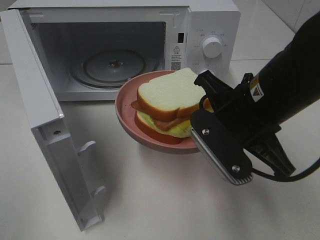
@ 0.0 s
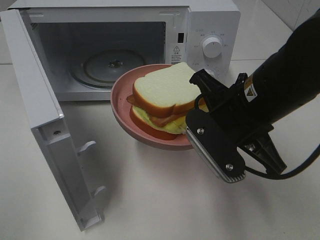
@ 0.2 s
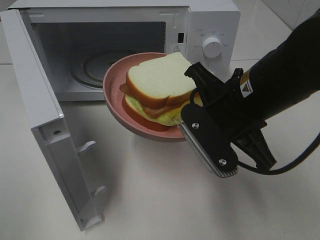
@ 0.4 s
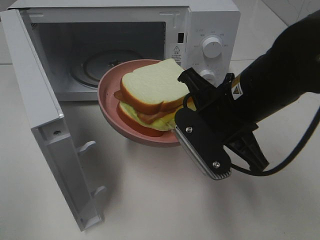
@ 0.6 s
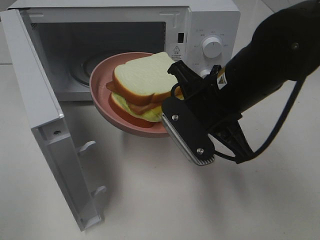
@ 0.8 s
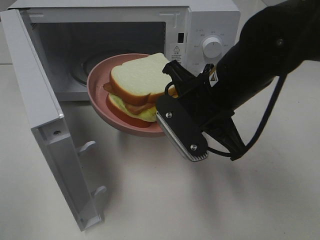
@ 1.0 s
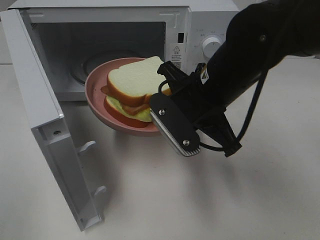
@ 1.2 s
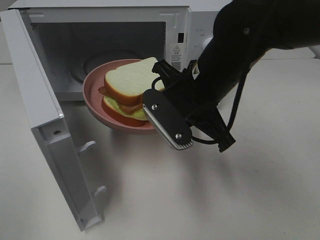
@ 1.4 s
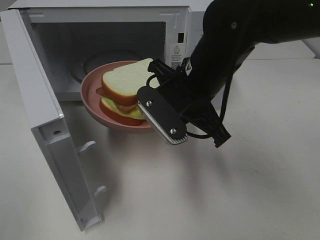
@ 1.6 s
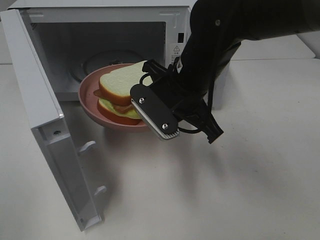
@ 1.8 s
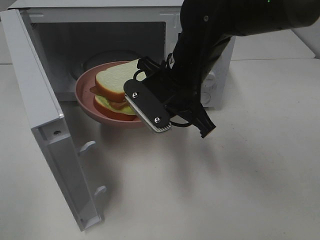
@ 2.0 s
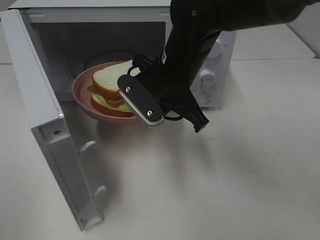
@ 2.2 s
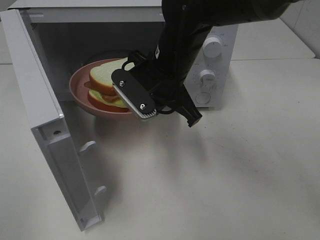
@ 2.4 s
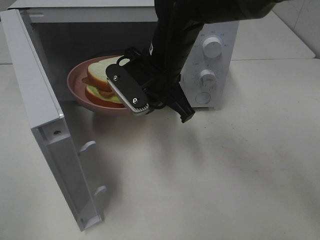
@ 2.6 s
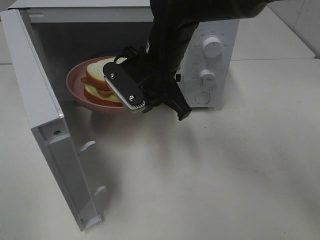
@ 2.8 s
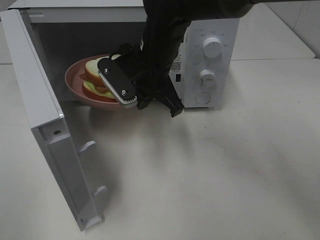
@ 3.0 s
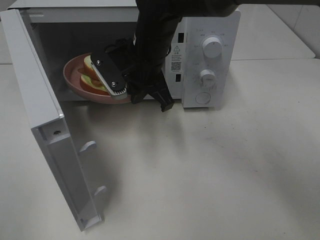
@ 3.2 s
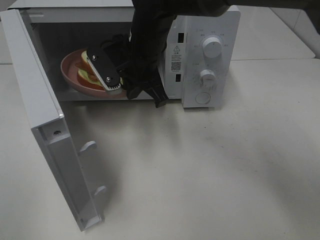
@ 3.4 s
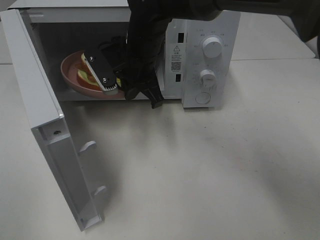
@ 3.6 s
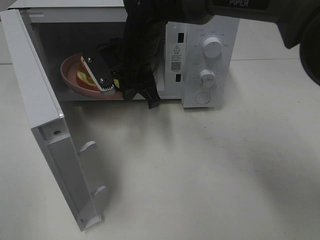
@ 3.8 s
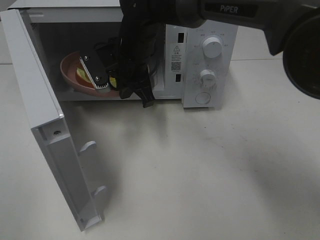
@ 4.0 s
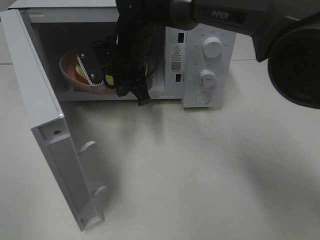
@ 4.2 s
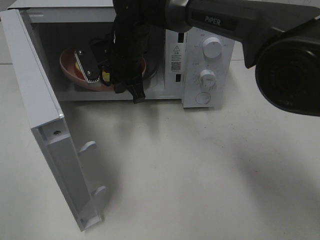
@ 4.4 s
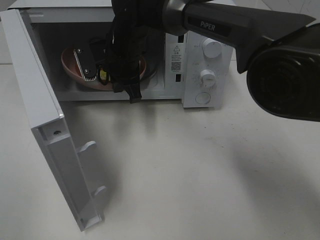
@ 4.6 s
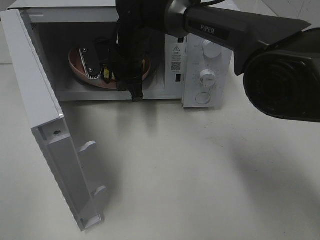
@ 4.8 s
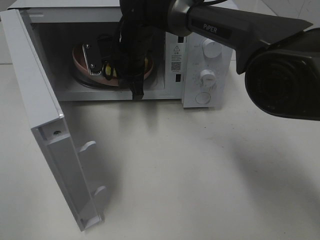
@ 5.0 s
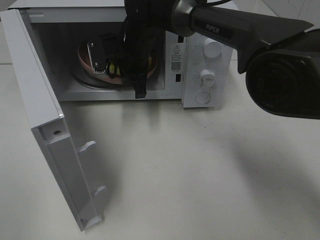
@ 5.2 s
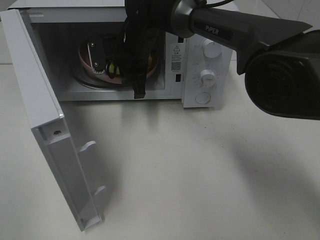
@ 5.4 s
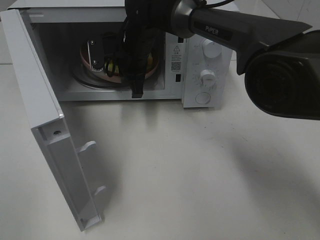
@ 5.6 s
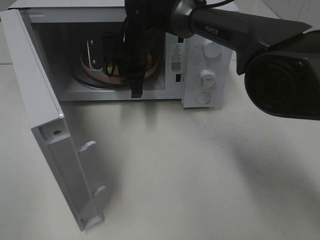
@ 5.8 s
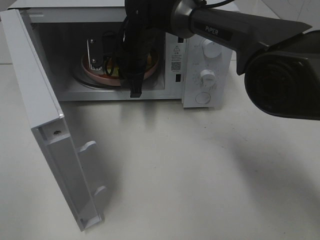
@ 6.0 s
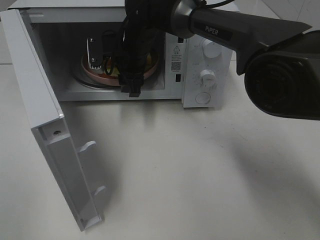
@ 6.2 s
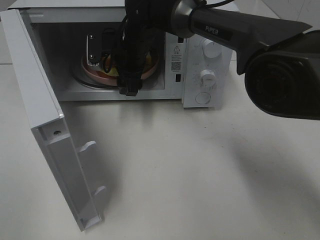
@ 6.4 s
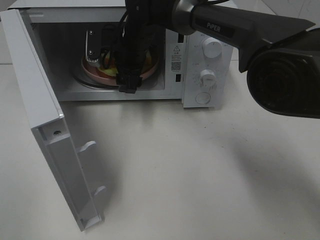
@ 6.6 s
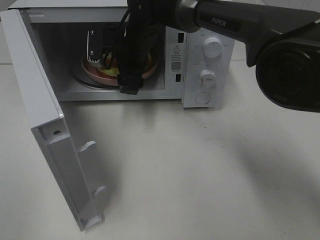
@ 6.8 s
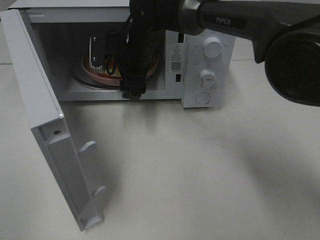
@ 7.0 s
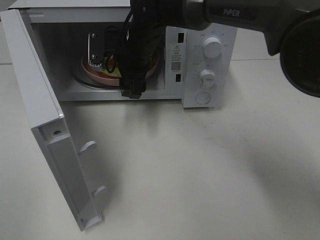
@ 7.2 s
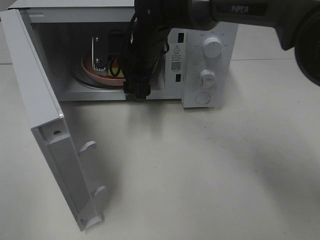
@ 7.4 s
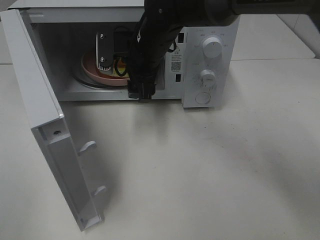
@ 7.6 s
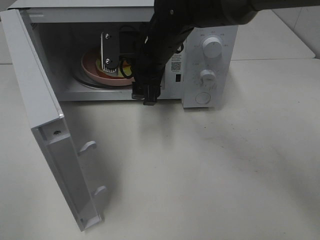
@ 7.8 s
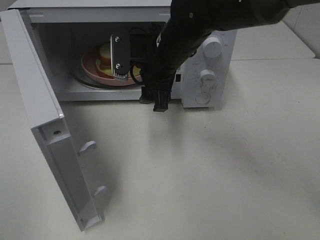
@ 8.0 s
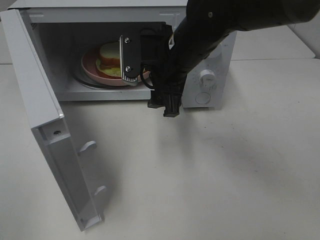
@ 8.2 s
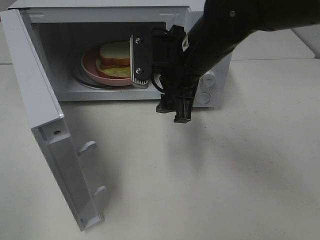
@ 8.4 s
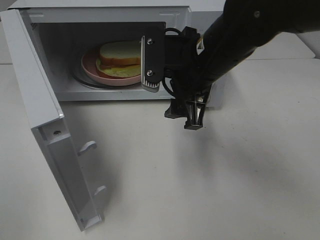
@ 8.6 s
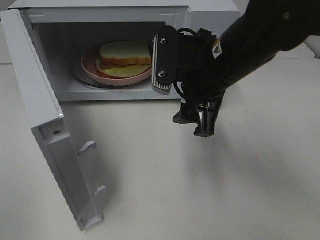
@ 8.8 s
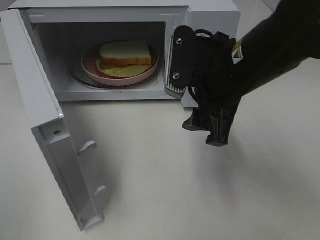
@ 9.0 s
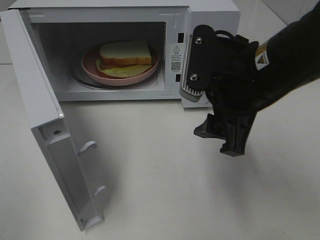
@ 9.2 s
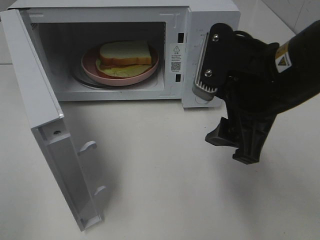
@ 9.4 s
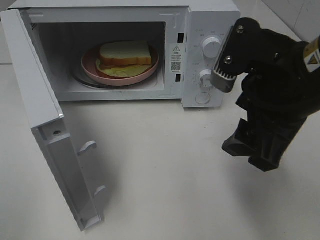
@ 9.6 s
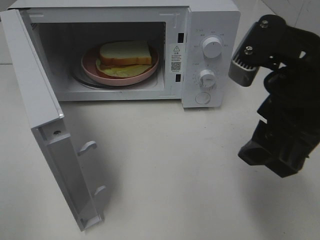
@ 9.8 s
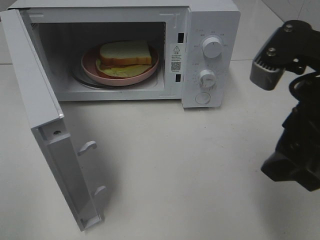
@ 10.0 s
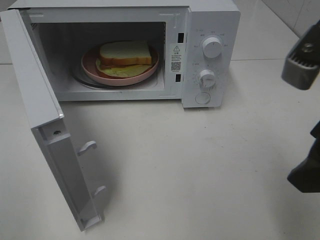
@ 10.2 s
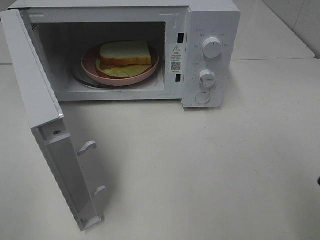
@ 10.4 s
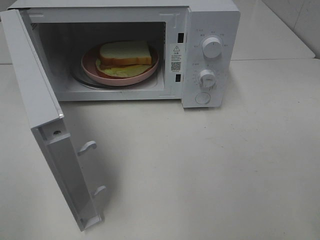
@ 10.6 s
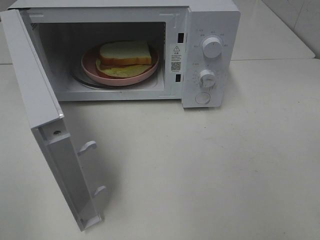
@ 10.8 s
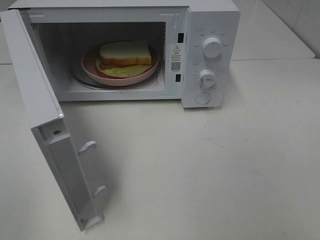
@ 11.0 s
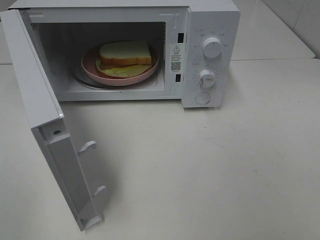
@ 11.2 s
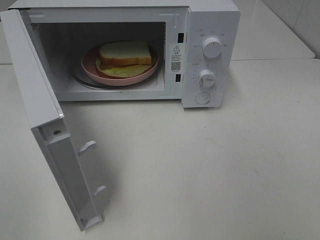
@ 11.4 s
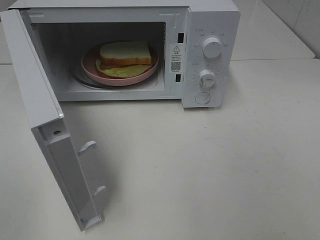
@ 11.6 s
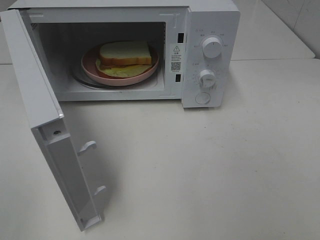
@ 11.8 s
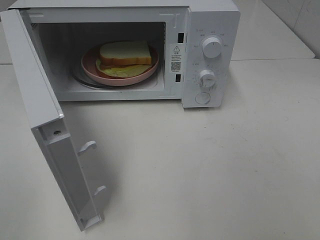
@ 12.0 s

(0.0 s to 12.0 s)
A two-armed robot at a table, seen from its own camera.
Task of the whole recording: Heat Sandwich.
Step, 0.0 s - 6.8 s: Right hand: place the plate in the microwave.
0.0 s - 1.6 s: The right gripper shifts about 10 cm forward and to the left.
1.6 s - 3.0 s: The right gripper heads forward and to the left, covering some 10 cm.
3.0 s - 4.4 s: The right gripper travels forward by approximately 5 cm.
4.4 s - 6.0 s: The grippers stay close to where they were, moving slightly.
6.0 s - 7.6 s: The right gripper heads backward, covering some 5 cm, and opens.
7.6 s - 9.0 s: The right gripper shifts approximately 20 cm backward and to the right.
9.0 s - 10.4 s: The right gripper is displaced backward, to the right and upward by approximately 20 cm.
10.4 s - 12.0 s: The right gripper moves backward and to the right, approximately 15 cm.

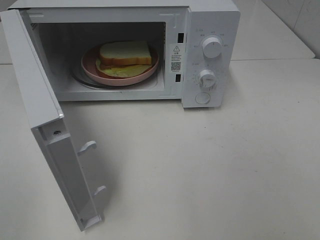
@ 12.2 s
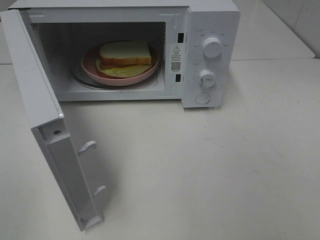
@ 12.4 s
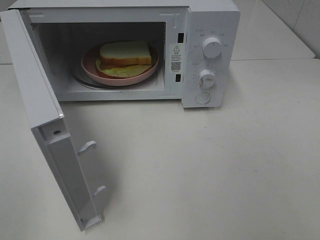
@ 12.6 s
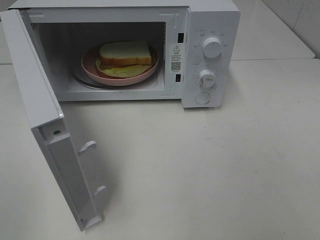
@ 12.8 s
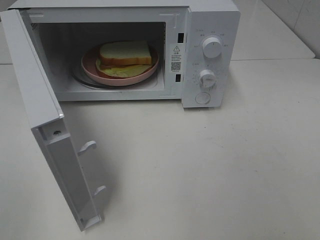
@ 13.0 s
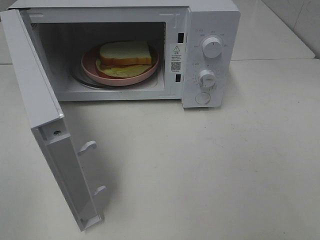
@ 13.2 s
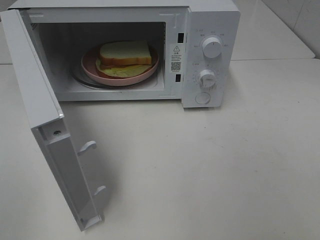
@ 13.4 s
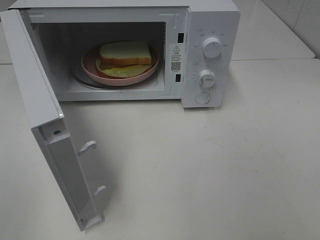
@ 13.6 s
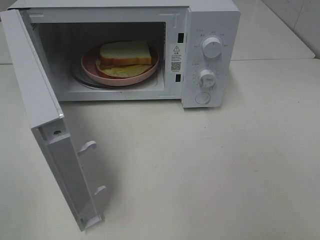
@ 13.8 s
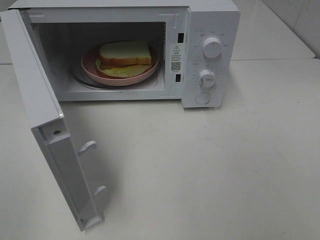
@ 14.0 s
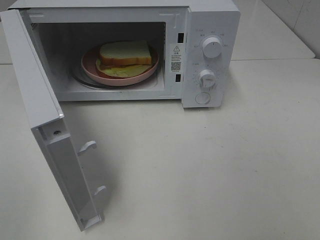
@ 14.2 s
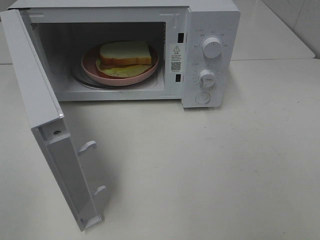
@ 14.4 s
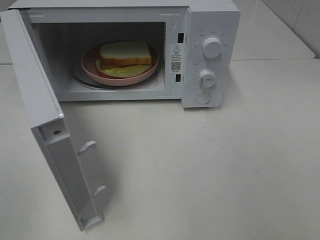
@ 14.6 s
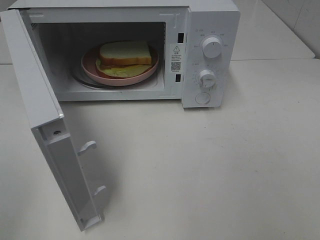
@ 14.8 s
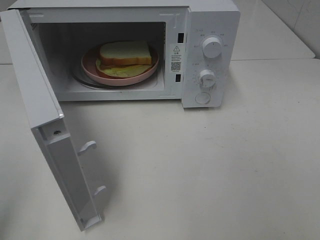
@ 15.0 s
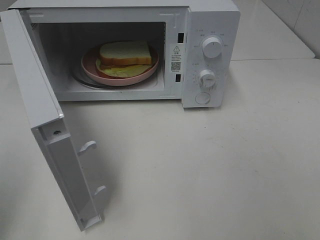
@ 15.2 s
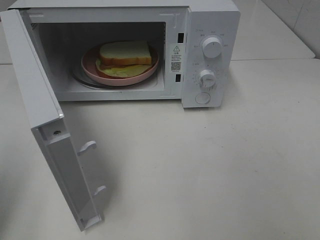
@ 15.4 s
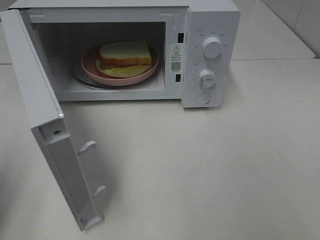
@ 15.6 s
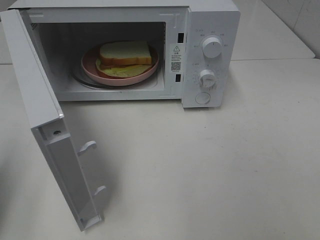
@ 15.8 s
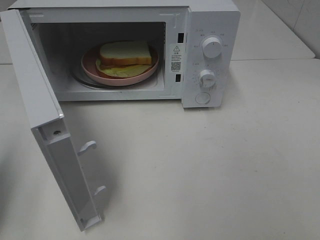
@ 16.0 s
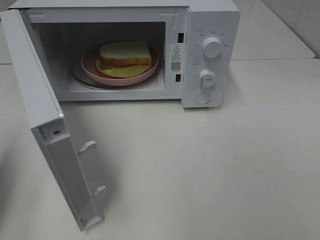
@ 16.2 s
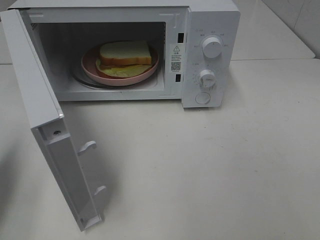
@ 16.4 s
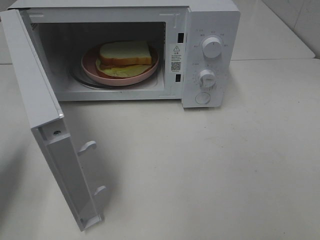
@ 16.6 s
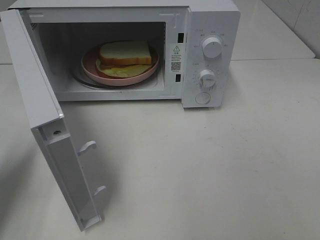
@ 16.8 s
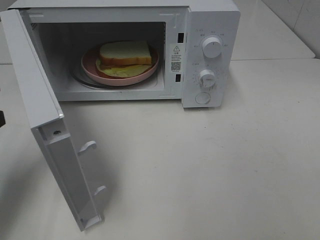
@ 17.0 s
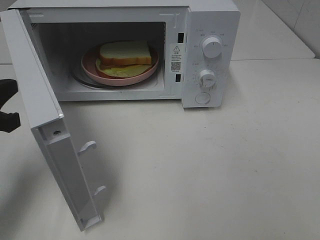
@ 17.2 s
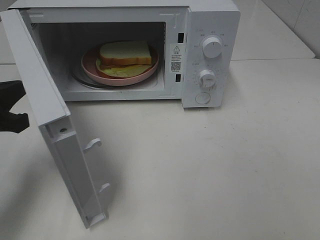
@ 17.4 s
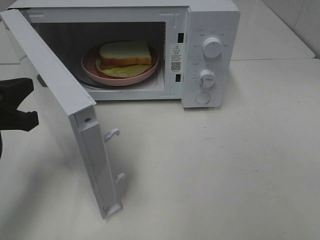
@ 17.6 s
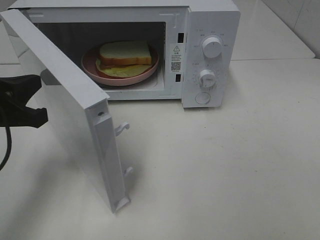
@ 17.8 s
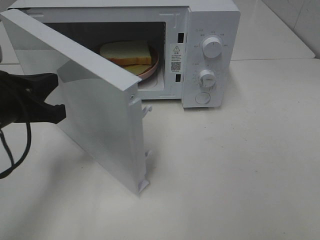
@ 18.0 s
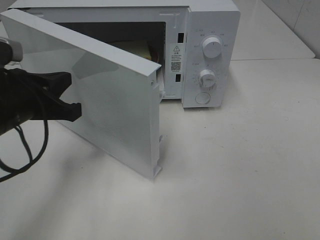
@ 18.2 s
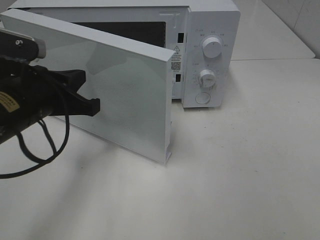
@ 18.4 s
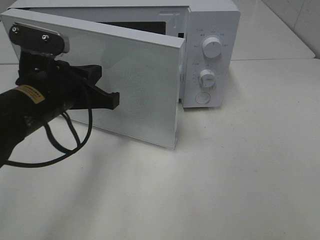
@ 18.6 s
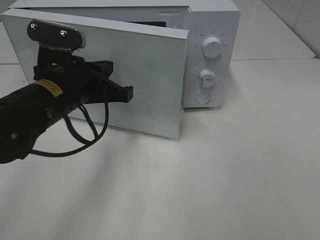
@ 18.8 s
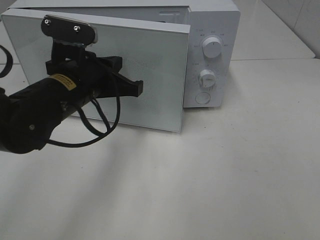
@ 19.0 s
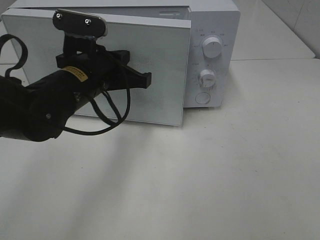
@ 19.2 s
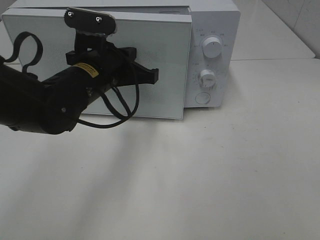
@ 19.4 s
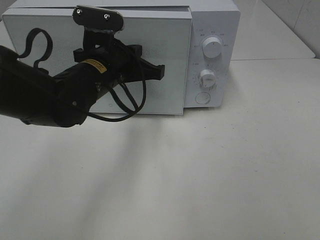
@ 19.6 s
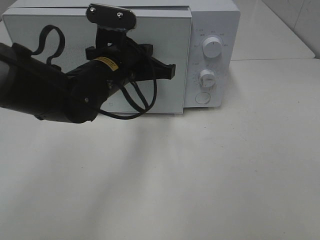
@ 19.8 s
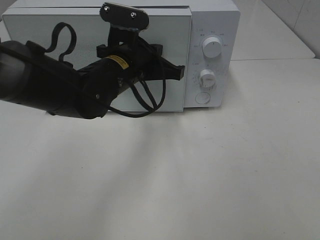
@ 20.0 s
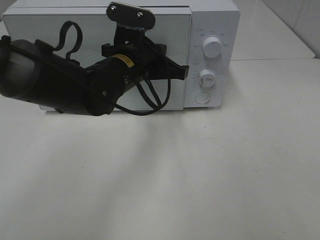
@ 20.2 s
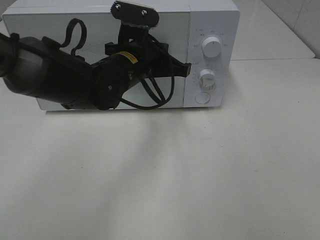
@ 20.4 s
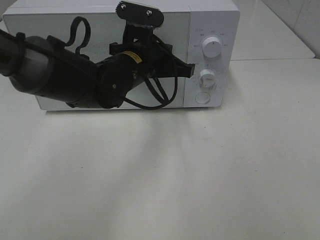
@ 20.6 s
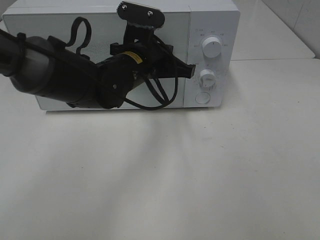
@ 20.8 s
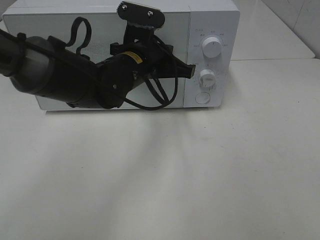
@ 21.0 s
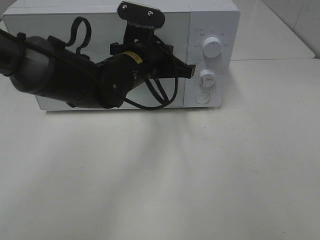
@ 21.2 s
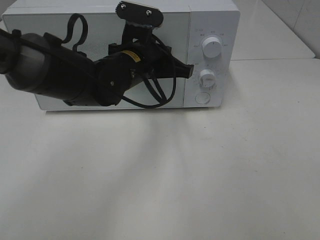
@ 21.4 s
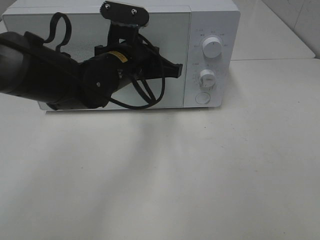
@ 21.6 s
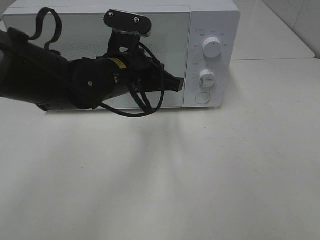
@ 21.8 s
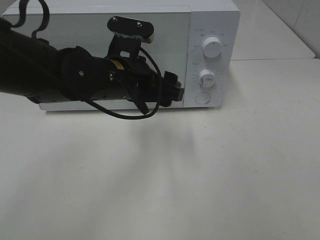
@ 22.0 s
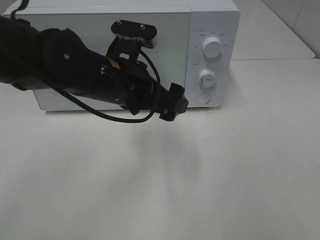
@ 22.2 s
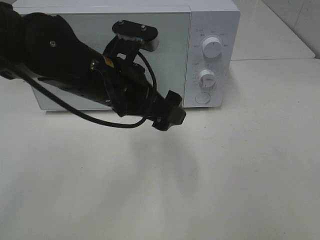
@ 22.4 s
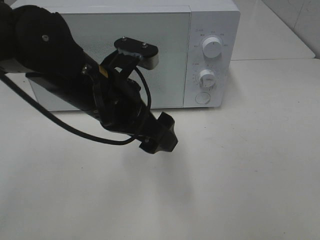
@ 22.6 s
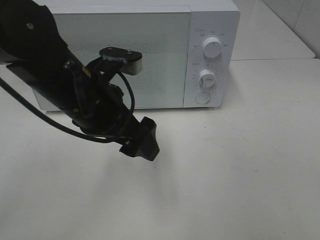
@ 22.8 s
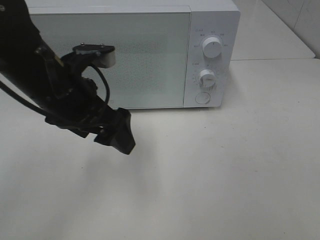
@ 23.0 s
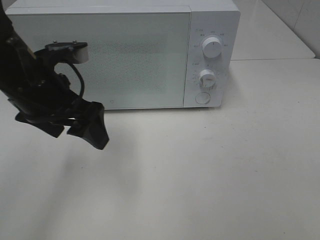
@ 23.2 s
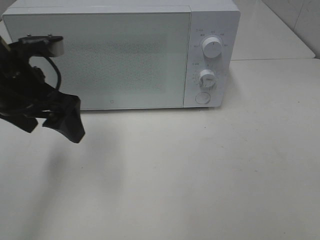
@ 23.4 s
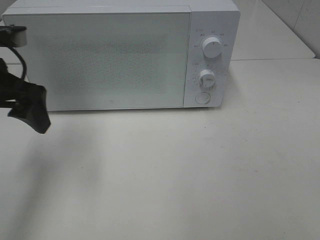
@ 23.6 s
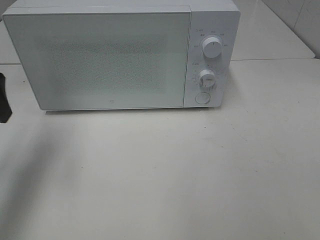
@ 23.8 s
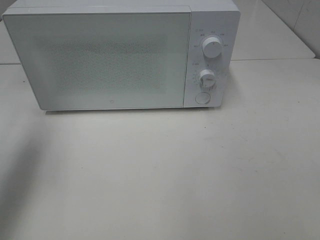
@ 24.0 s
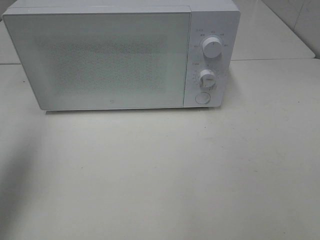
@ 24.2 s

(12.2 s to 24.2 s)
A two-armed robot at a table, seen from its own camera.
Task of the whole recording: Heat Sandwich.
Step, 12.2 s - 21.6 s: Left hand: close the microwave door.
12.2 s - 13.8 s: Neither gripper changes place.
15.2 s - 16.6 s: The left gripper shifts approximately 15 cm forward and downward.
16.6 s - 18.2 s: The left gripper is displaced to the right by about 10 cm.
18.2 s - 19.8 s: The left gripper heads to the right and forward, covering roughly 15 cm.
19.8 s - 21.2 s: The grippers move only a little.
21.2 s - 22.6 s: The left gripper goes about 10 cm backward, and opens up.
22.6 s - 24.2 s: The left gripper travels to the left and upward by approximately 25 cm.
